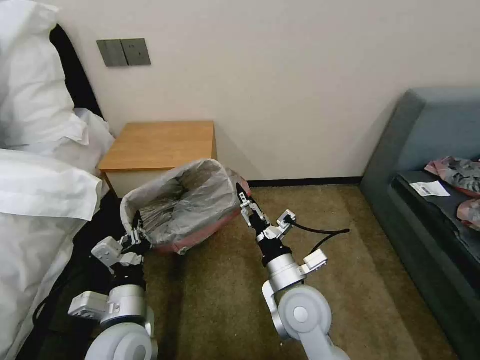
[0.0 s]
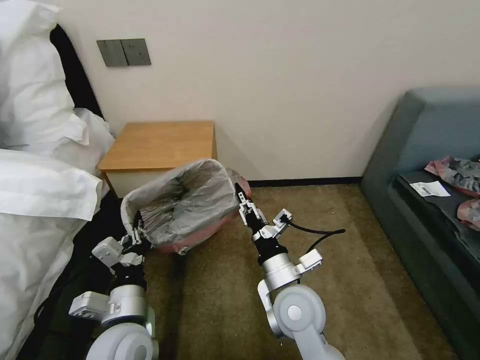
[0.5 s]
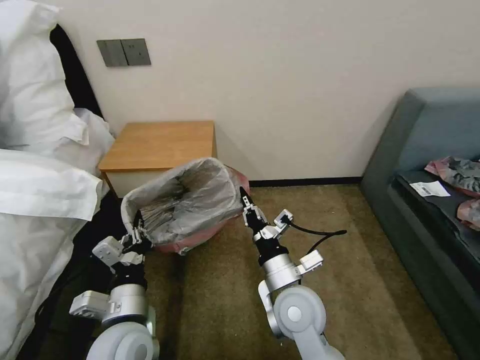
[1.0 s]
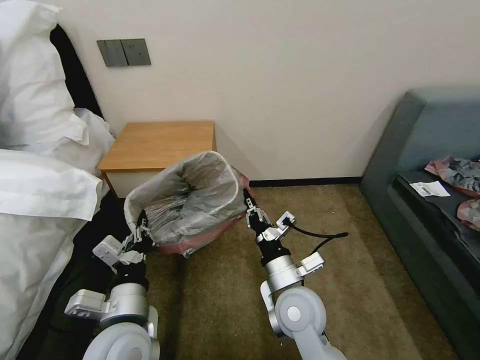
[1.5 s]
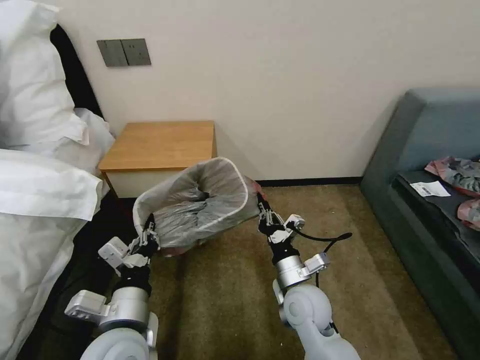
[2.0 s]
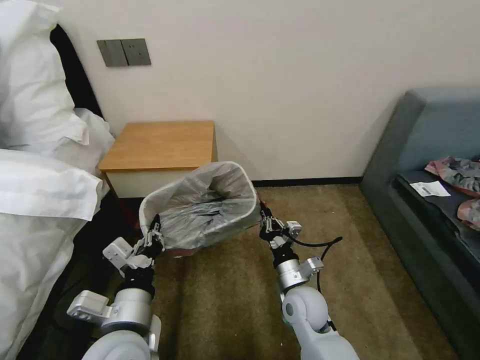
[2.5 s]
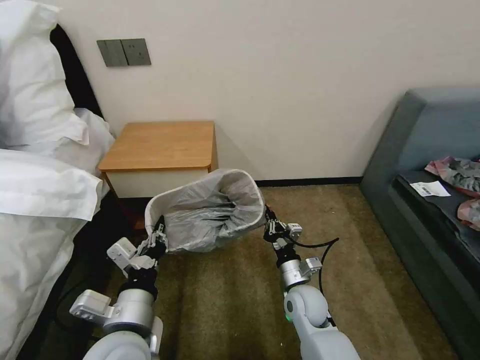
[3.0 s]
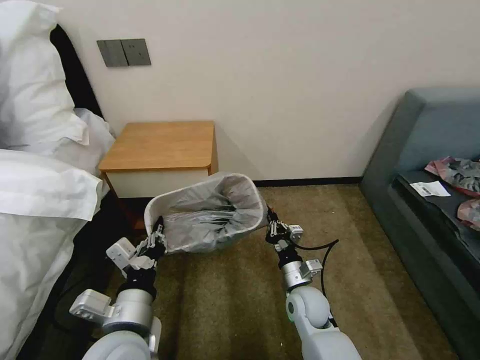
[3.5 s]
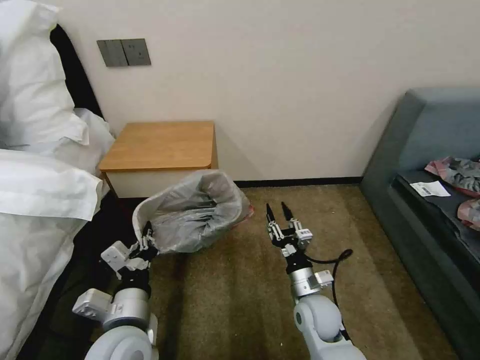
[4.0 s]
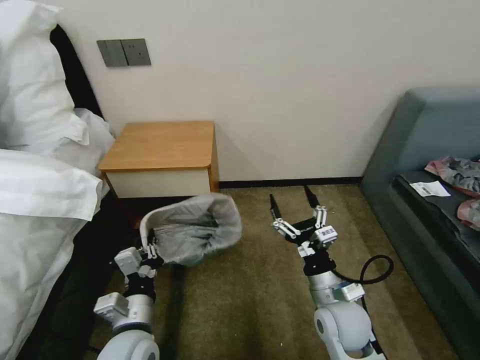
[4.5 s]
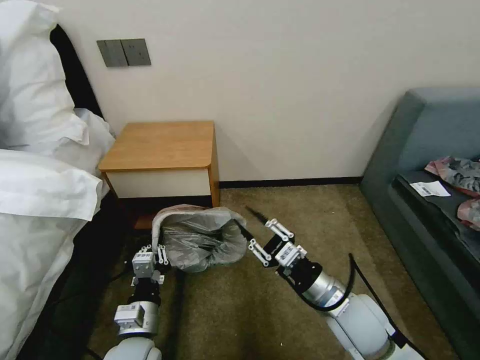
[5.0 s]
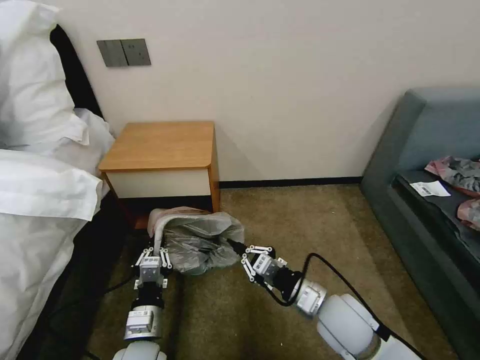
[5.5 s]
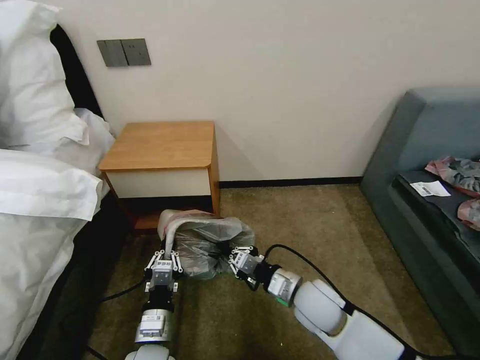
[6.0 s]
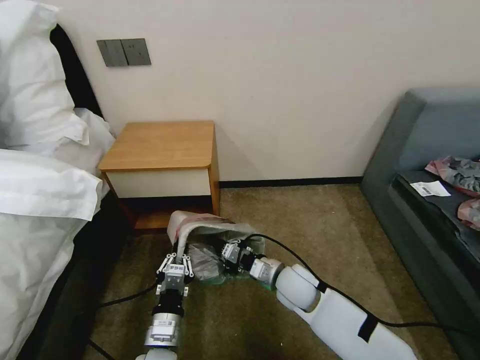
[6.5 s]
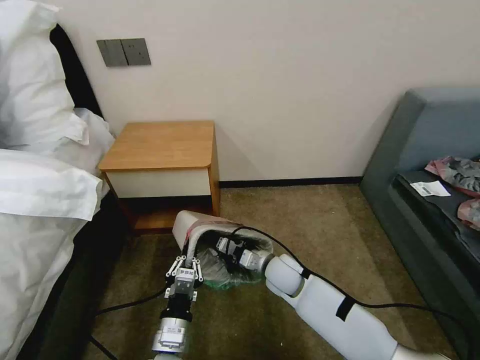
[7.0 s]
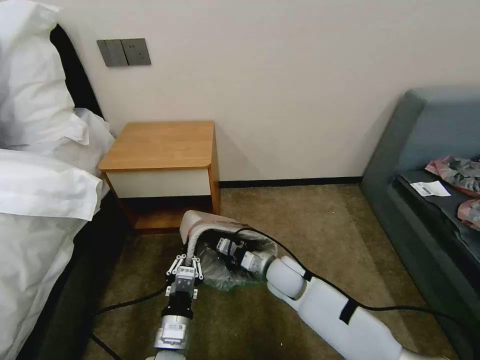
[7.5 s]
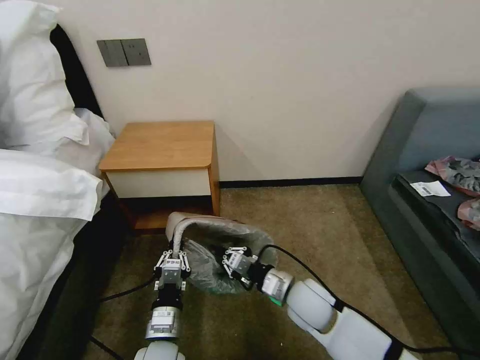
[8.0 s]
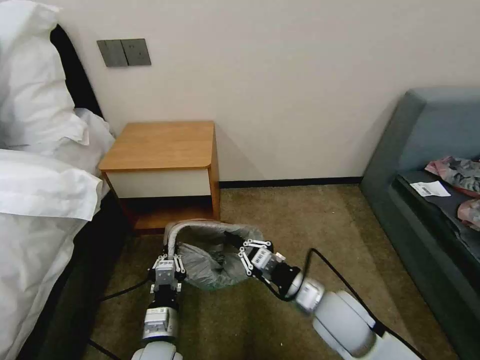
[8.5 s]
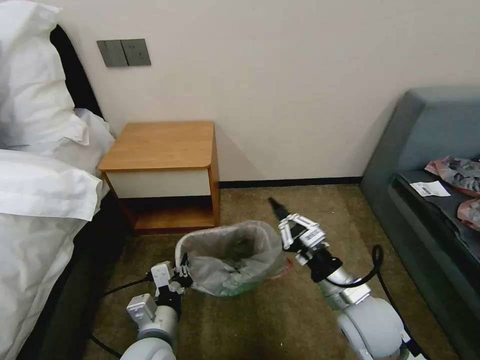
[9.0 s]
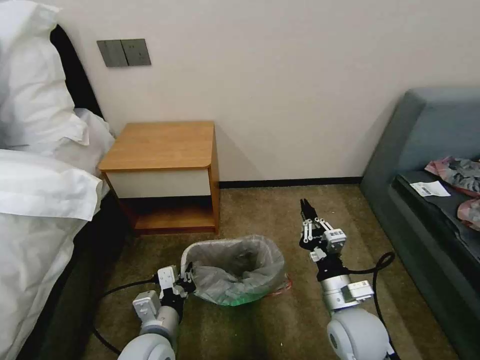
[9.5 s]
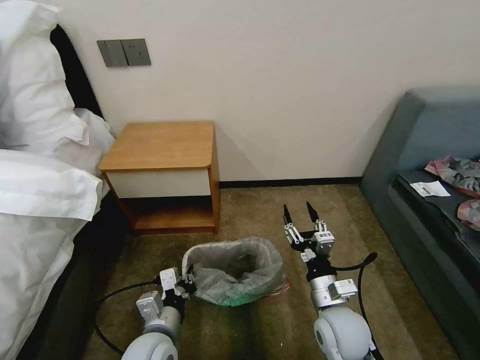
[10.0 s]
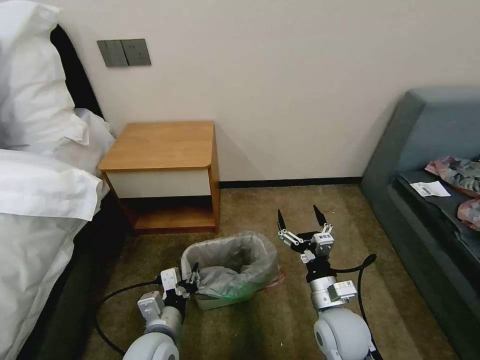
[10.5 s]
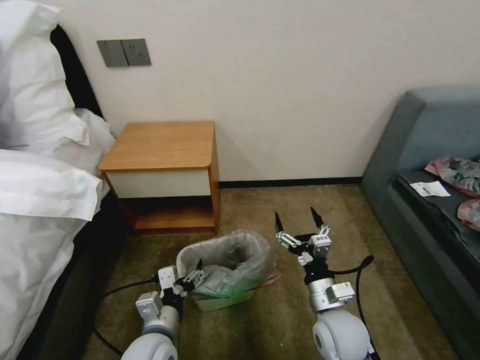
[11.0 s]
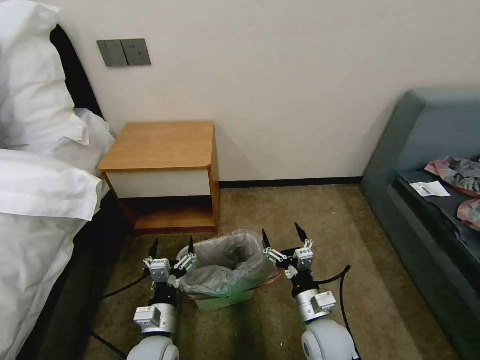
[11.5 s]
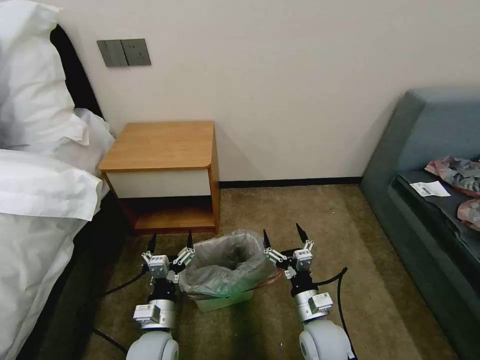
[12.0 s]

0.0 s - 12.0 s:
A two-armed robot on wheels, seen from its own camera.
Task of the whole recording: Pick up the garbage bag from the table and place it over the trash can.
0.0 s - 2.0 s: The right gripper goes some 5 cm downward, and closes up.
2.0 s - 4.0 s: The right gripper shifts some 5 cm downward, and opens its fingers.
4.0 s - 6.0 s: The right gripper goes some 5 cm upward, and closes its fingers. The left gripper goes some 10 cm downward.
6.0 s - 8.0 s: The right gripper moves roughly 10 cm forward and comes back.
8.0 s - 10.0 s: The right gripper travels backward and to the right by about 10 cm, and opens its fingers.
10.0 s - 12.0 s: Both grippers move downward, roughly 5 cm. The right gripper opens up; the left gripper opens.
